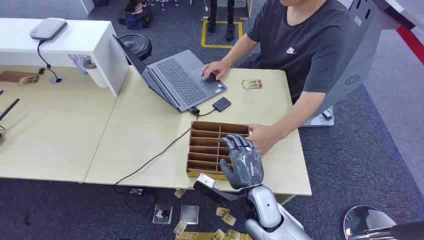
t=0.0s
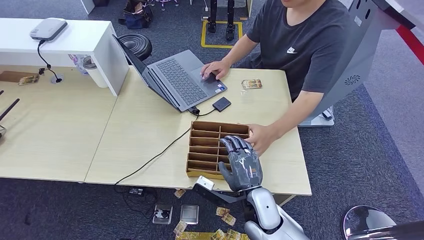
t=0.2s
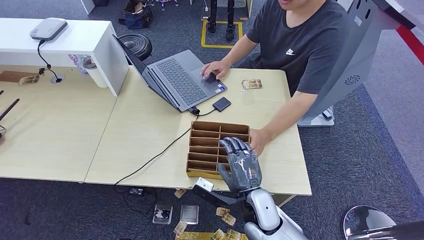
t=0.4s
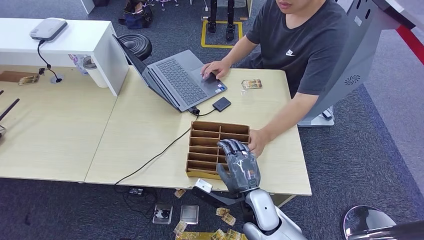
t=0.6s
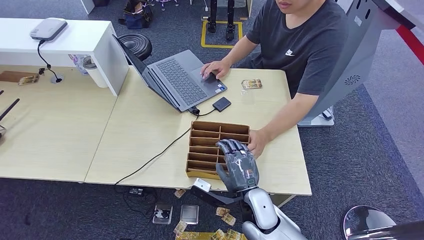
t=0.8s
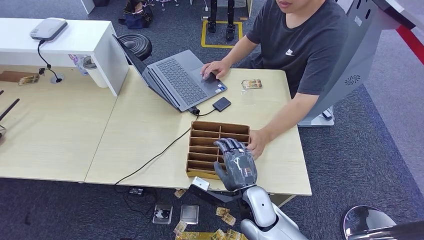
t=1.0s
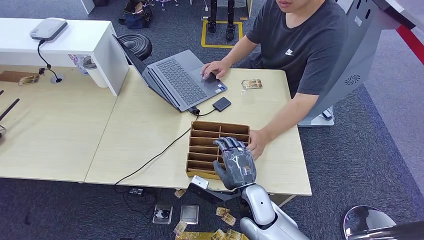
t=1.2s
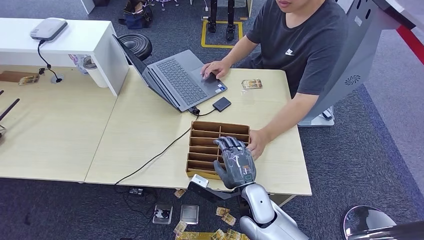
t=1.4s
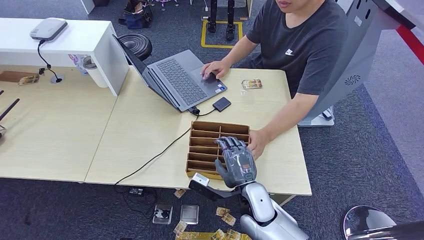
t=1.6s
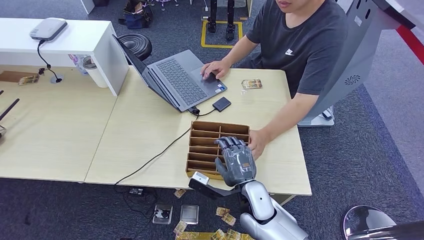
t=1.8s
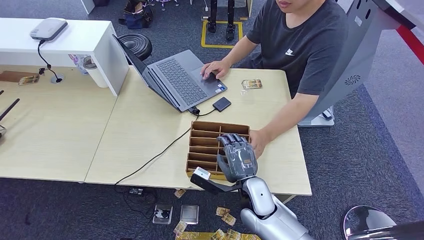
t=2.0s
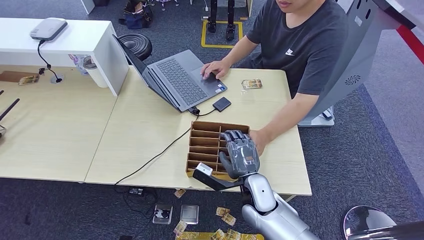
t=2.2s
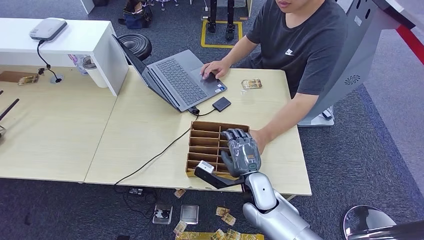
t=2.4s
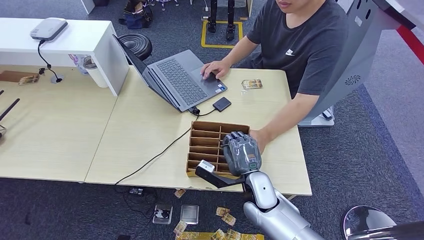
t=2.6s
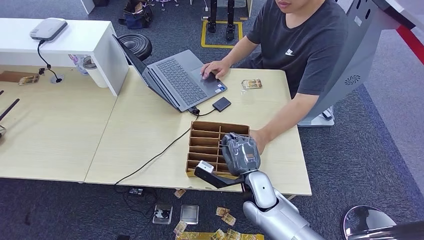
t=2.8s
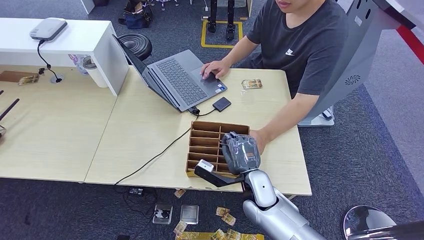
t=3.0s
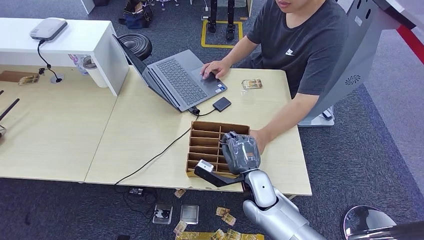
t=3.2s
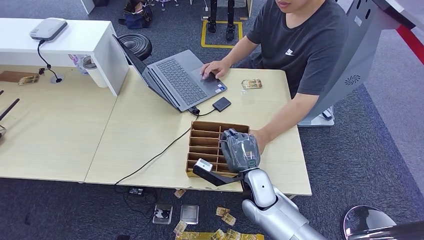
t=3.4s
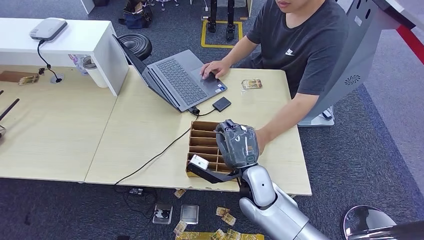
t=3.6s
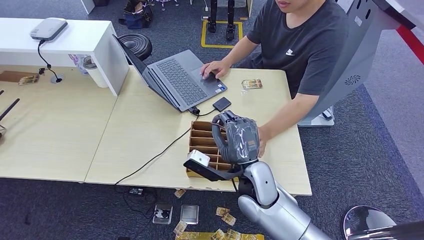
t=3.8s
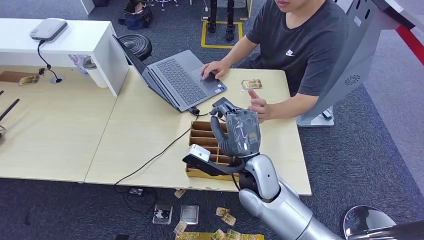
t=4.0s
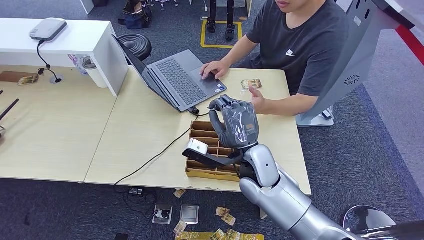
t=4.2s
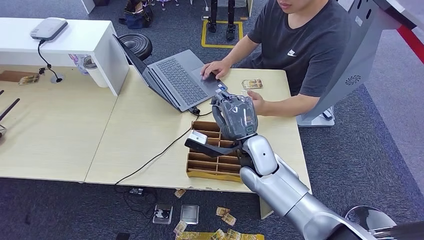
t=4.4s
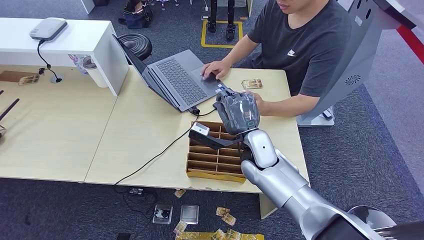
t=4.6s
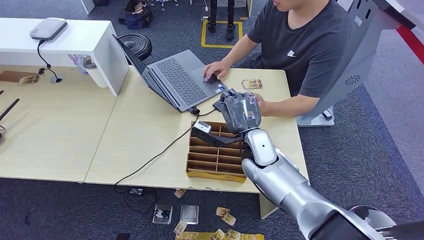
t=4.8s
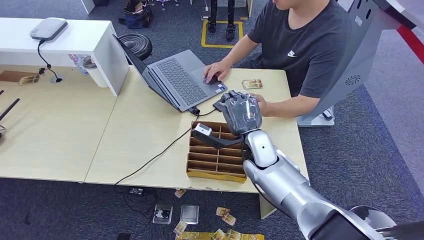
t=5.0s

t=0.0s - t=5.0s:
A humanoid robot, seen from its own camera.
Step, t=0.0s - t=4.0s: Pick up the key card from the card box.
Step, t=4.2s - t=5.0s: Hand the key card to the target.
t=1.6s - t=3.4s: There are only small adjustments of the hands.
t=3.4s - t=5.0s: The right hand moves forward and upward, some 10 cm.
